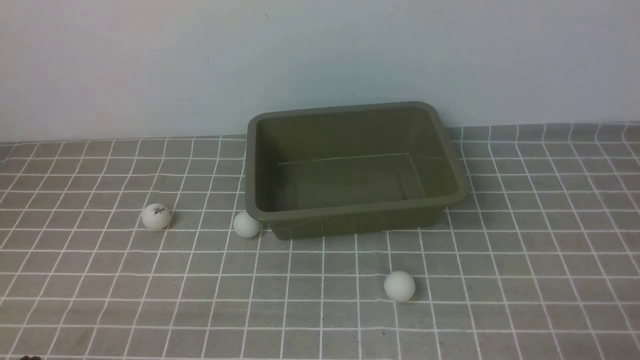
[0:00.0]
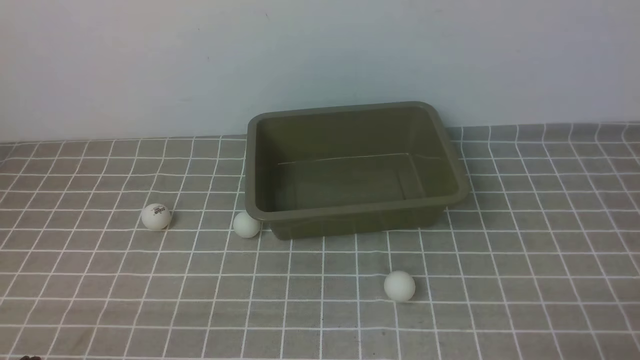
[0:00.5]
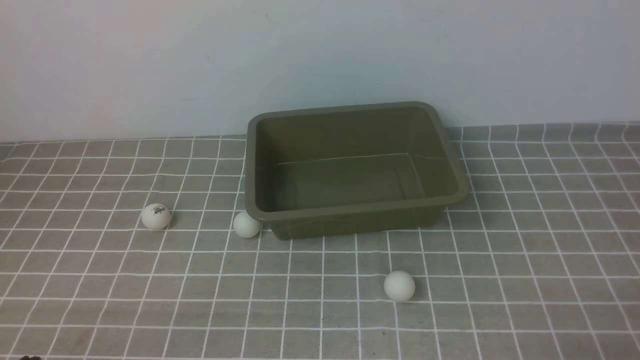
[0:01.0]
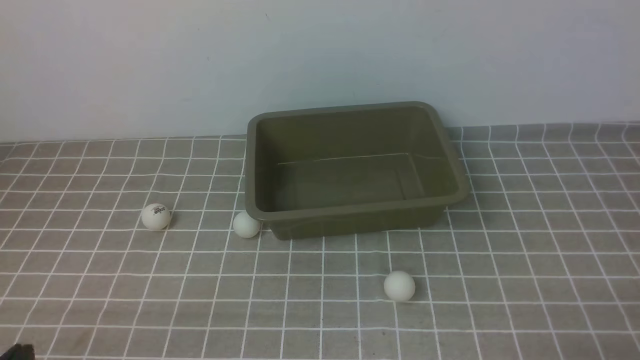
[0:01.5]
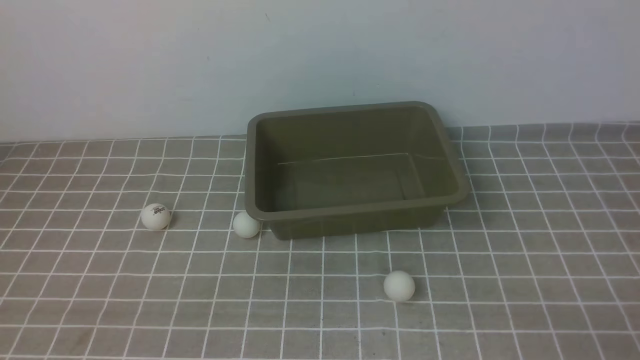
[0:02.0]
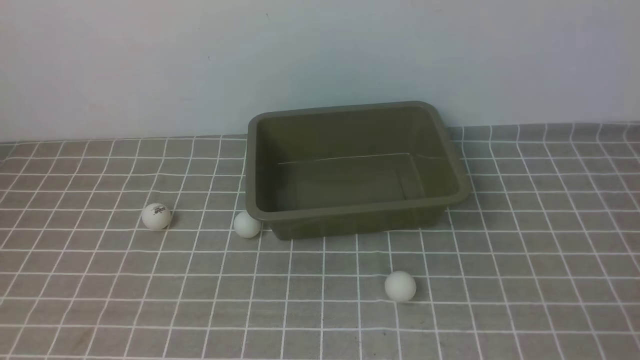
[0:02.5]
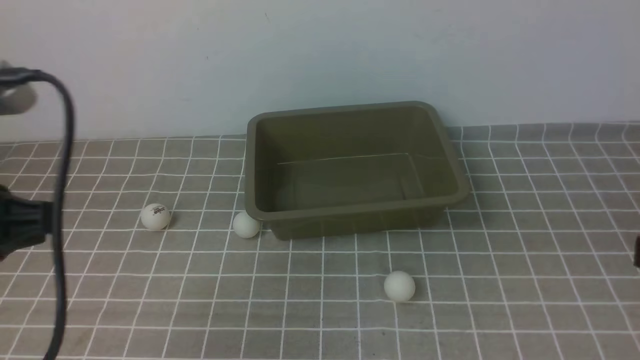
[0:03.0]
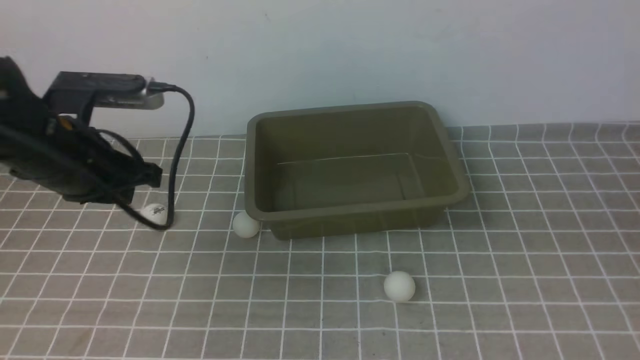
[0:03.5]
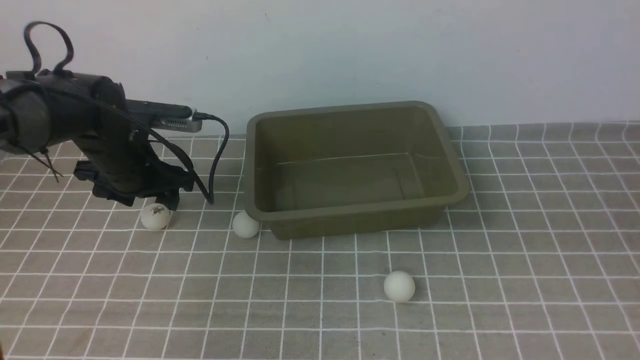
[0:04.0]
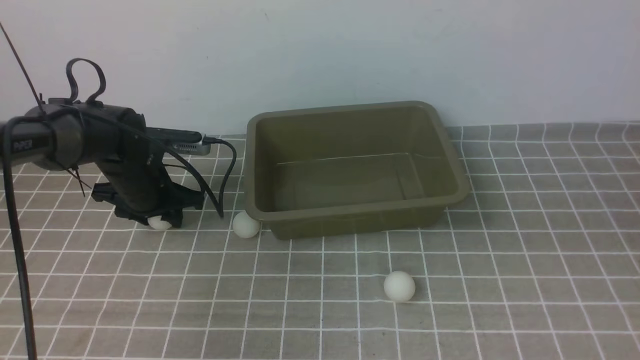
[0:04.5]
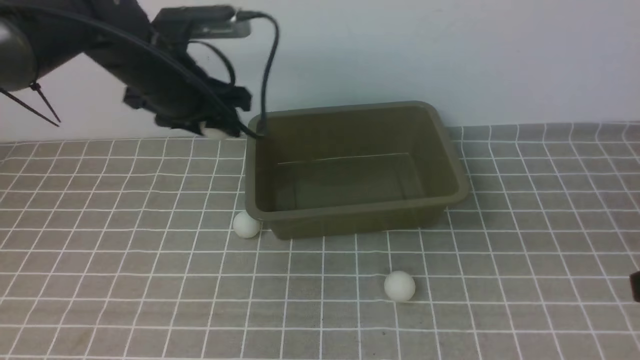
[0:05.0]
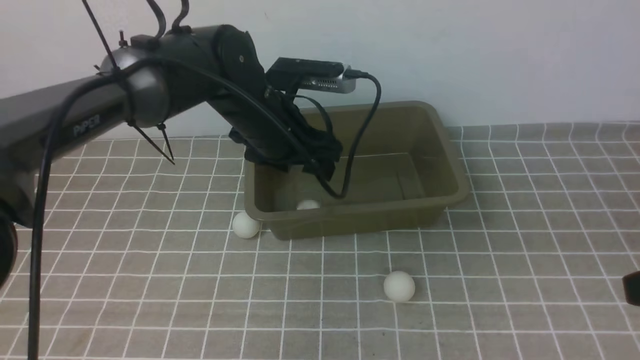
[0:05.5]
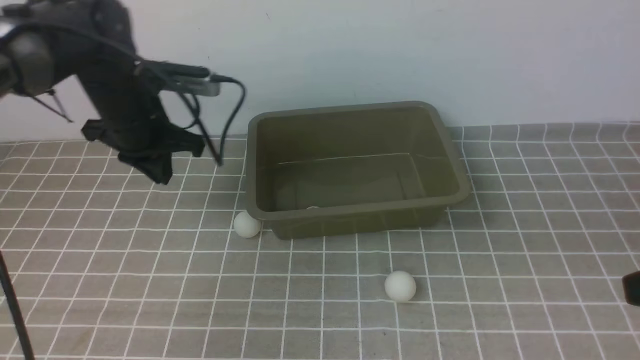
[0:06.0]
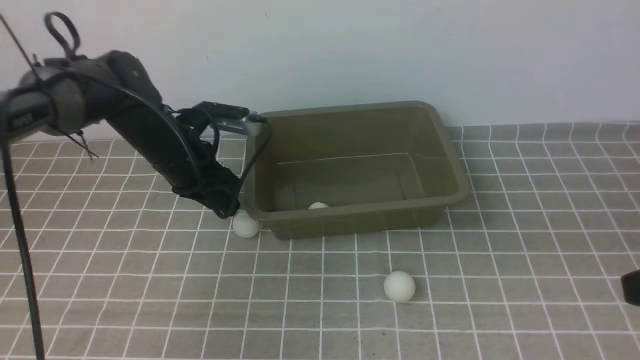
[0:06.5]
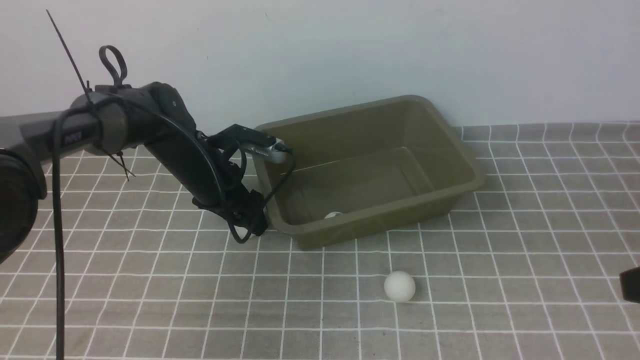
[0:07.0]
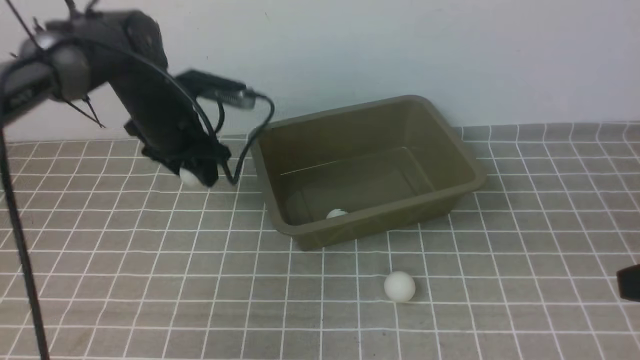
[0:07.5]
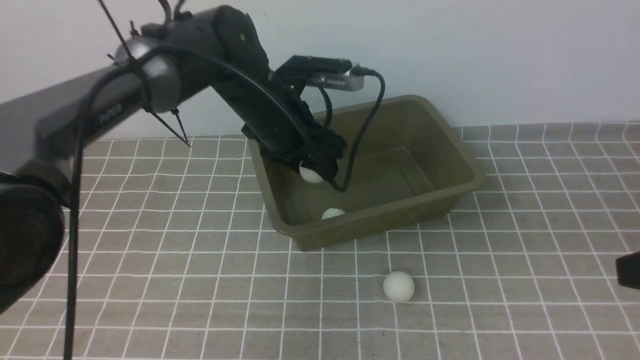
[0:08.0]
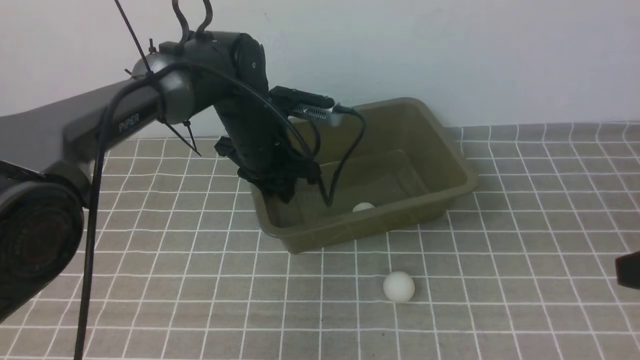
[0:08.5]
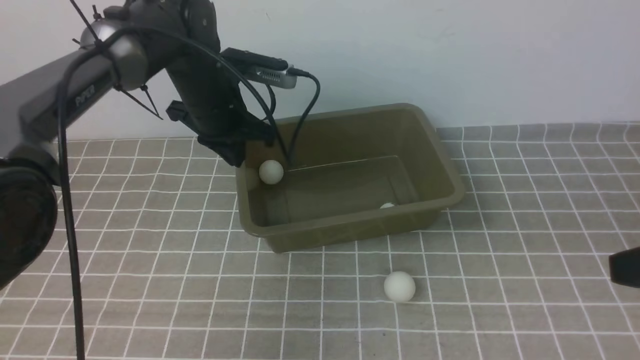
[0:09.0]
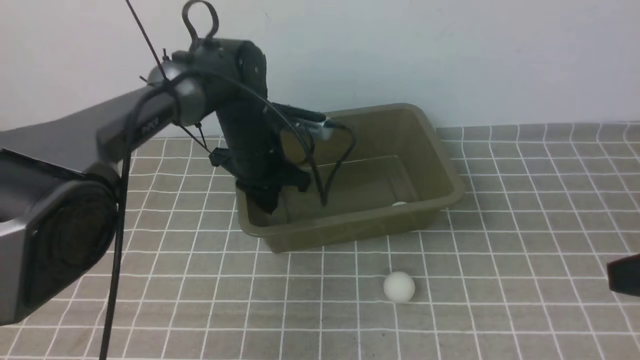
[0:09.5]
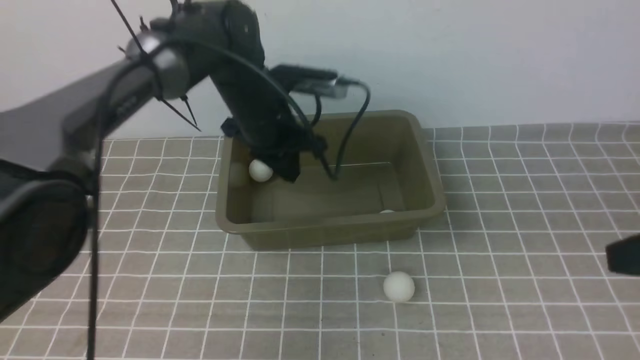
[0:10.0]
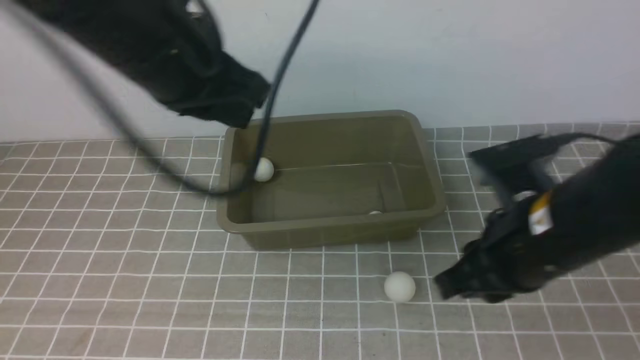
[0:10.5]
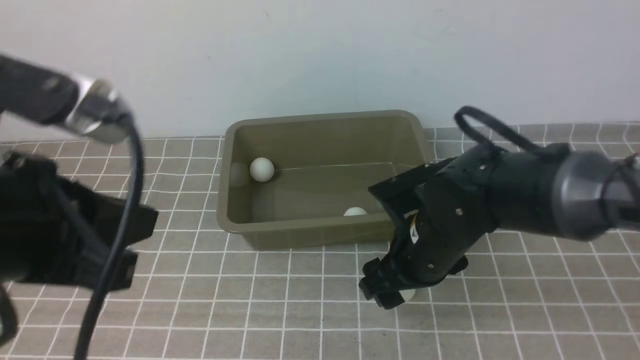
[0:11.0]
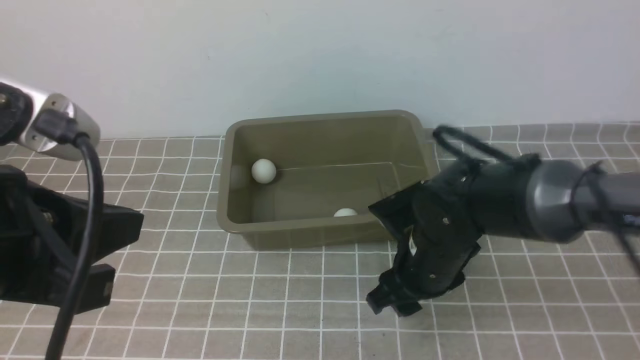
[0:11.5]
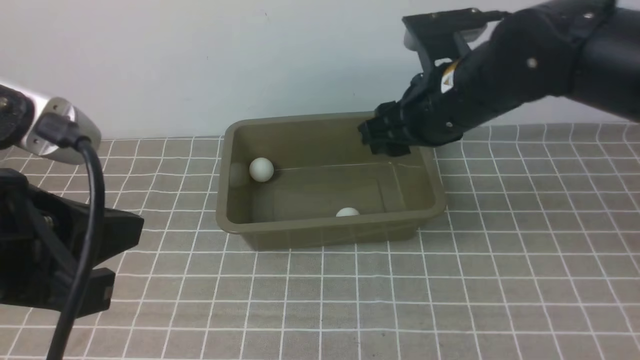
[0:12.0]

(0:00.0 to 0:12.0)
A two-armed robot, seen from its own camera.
Step, 0:00.0 - 0:04.5: use the left arm to clamp the table tennis ball closest to it.
Step, 0:05.0 - 0:05.5: use the left arm to put the table tennis ball into the box.
Step, 0:06.0 - 0:07.5: use the left arm to clamp the table tennis ball closest to it.
Step, 0:08.0 - 0:08.5: use the left arm to put the table tennis ball into the box.
Step, 0:09.0 - 0:11.5: use the right arm to clamp the table tennis ball closest to it.
0:02.0 - 0:04.0: The right gripper heads upward and forward, covering approximately 15 cm, and closes up; the left gripper heads forward, covering roughly 35 cm, and opens its fingers.
0:04.0 - 0:06.0: The left gripper travels to the right by roughly 5 cm, and closes up.
0:06.0 - 0:08.0: The left gripper travels to the right by roughly 10 cm, moves about 10 cm downward and comes back, and opens up.
0:08.0 - 0:10.0: The left gripper closes its fingers.
0:10.0 - 0:12.0: The right gripper moves forward and to the left, about 25 cm, and opens. The left gripper shifts approximately 35 cm backward and upward.

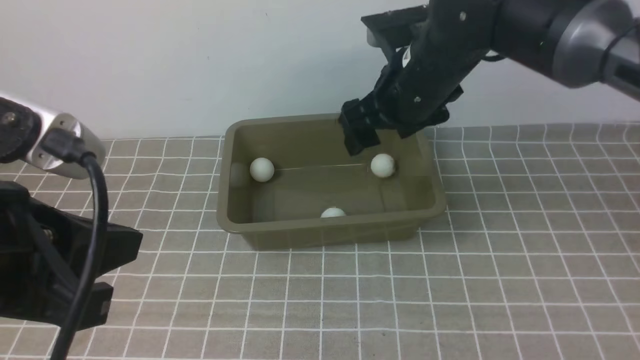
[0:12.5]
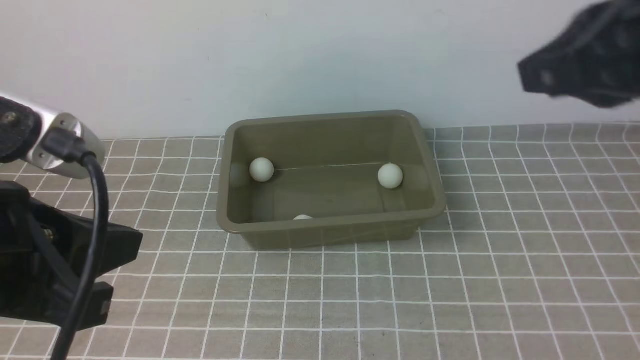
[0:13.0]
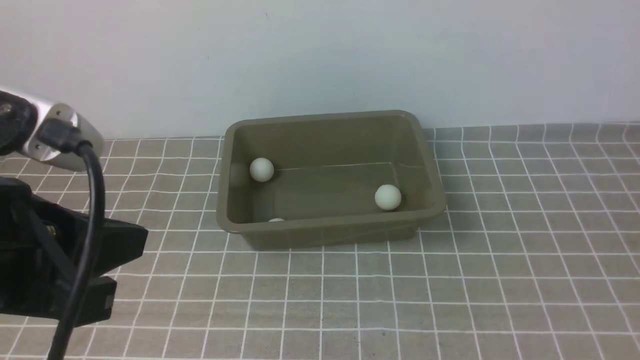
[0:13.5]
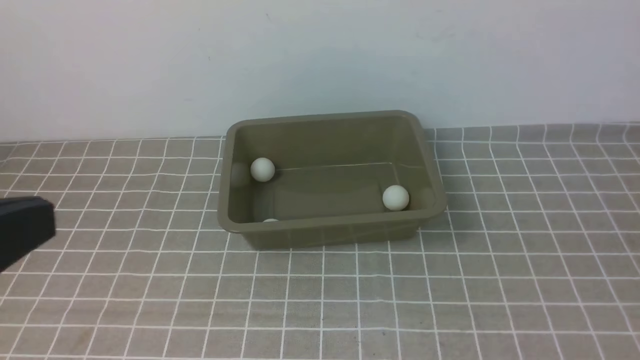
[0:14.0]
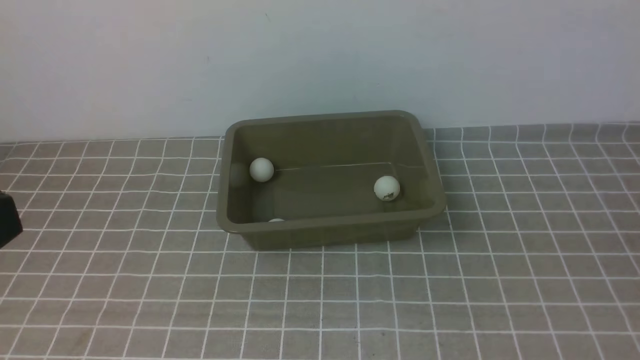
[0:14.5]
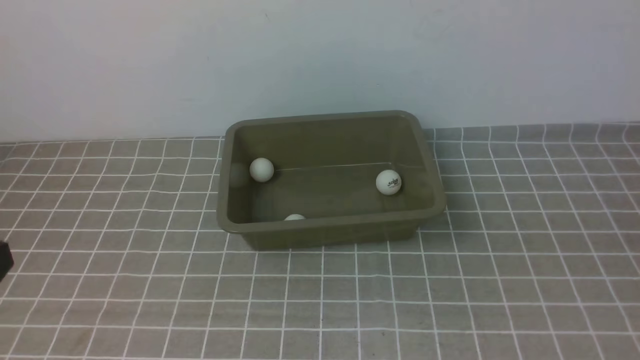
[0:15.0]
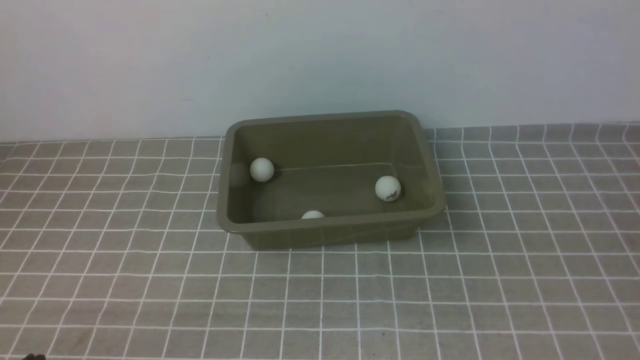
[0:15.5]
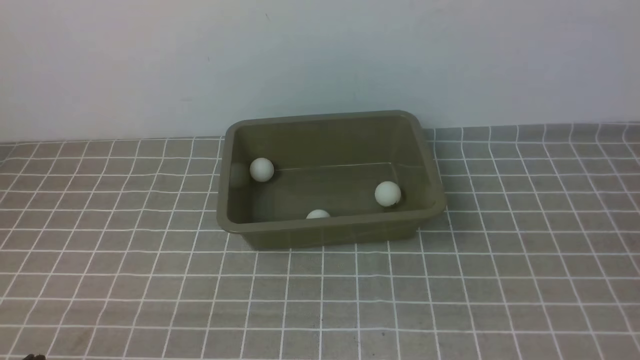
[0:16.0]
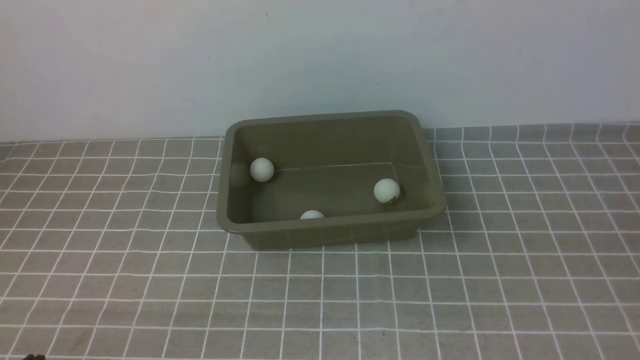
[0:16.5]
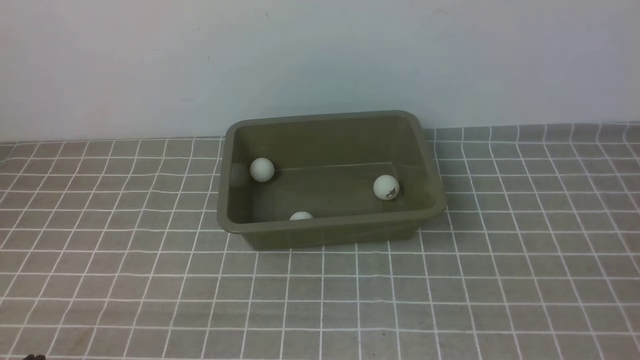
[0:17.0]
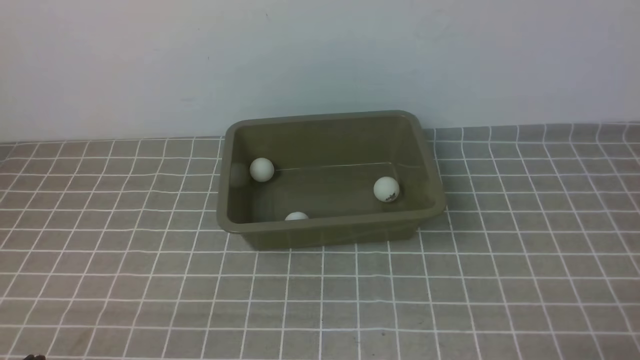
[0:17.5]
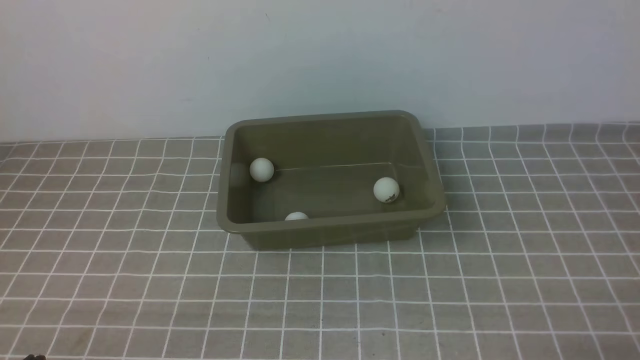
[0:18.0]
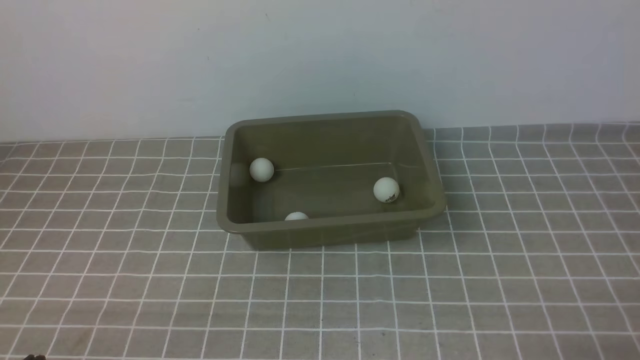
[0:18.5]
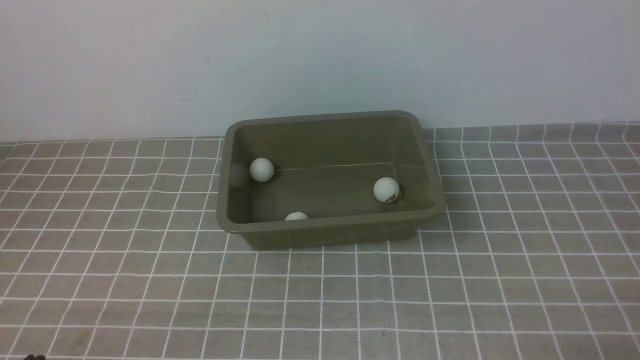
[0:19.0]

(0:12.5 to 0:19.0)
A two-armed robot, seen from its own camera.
0:12.5 - 0:14.5: The right gripper travels backward and to the right by approximately 40 cm, and closes up, while the left gripper is displaced backward by approximately 10 cm.

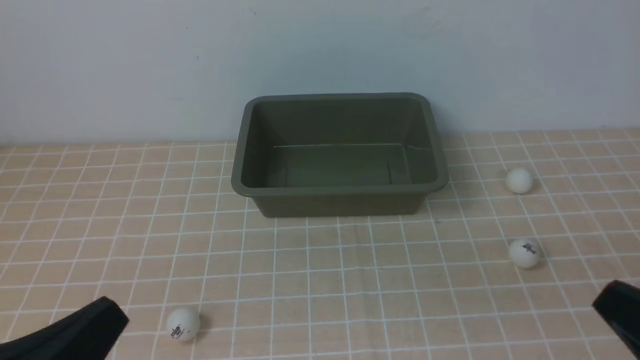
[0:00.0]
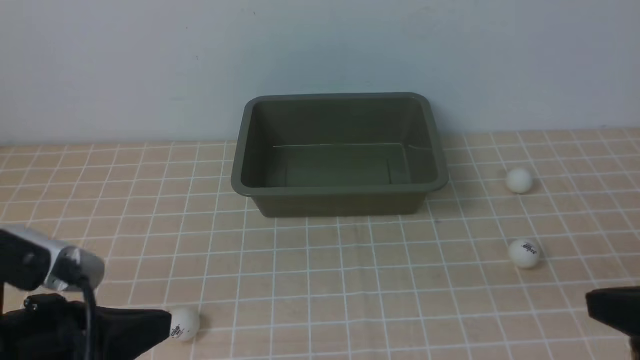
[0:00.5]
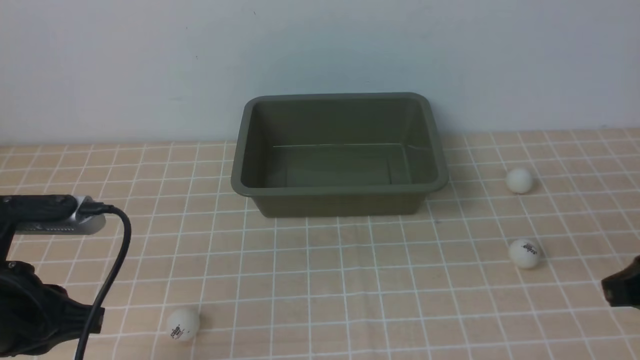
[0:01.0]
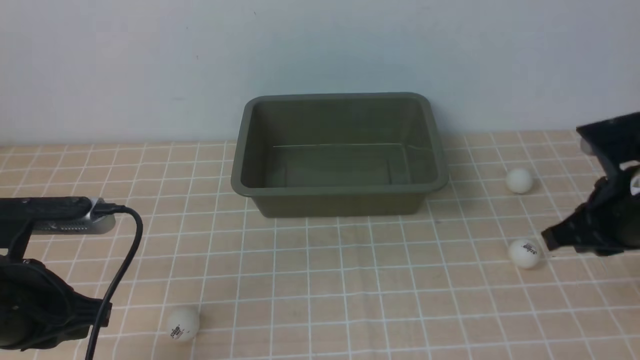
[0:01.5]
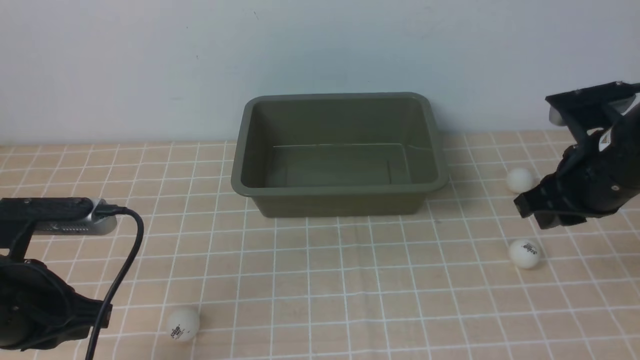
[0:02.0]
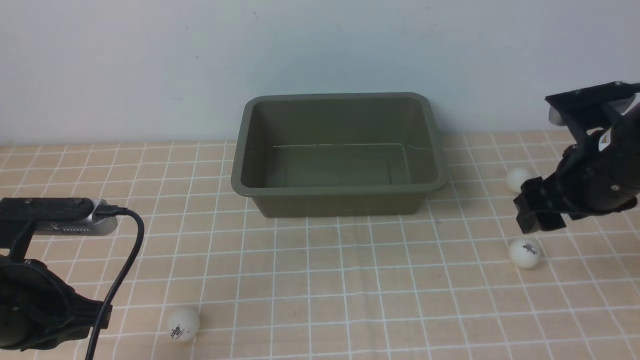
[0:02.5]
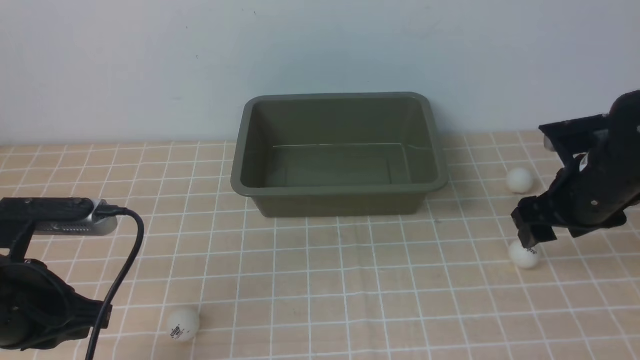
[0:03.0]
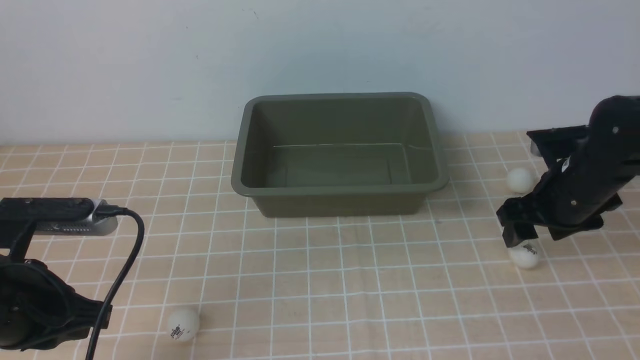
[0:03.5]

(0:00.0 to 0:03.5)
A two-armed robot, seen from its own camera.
0:00.0 - 0:02.0: The right gripper heads forward, covering roughly 25 cm. The left gripper goes some 15 cm forward.
0:02.0 - 0:03.5: The right gripper shifts some 10 cm downward and forward, and opens its fingers.
